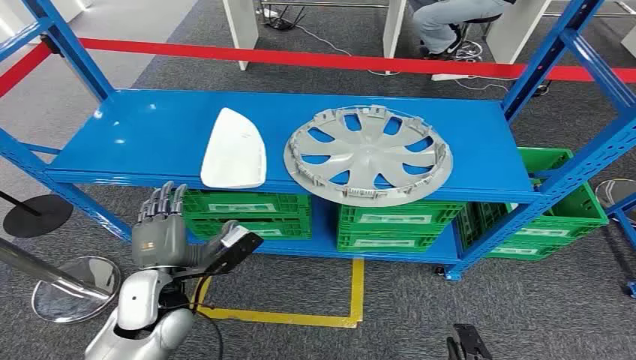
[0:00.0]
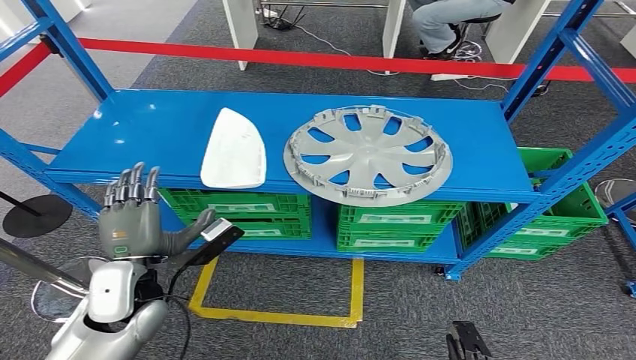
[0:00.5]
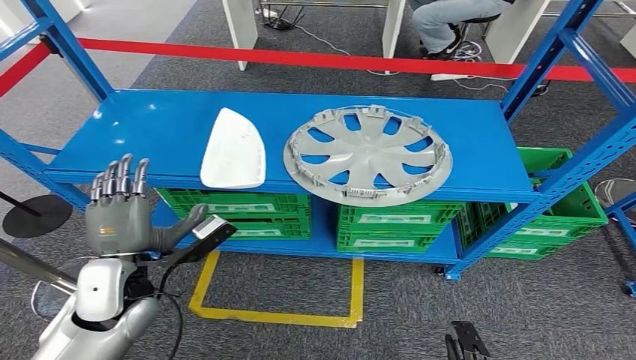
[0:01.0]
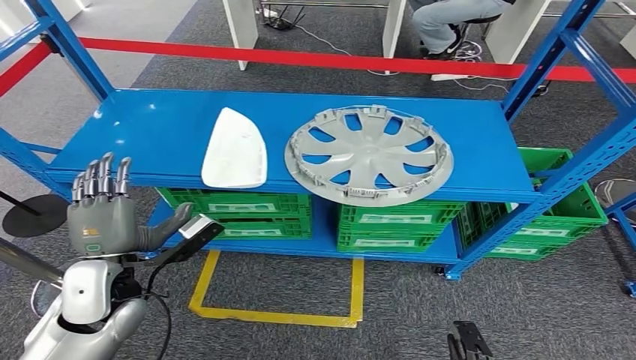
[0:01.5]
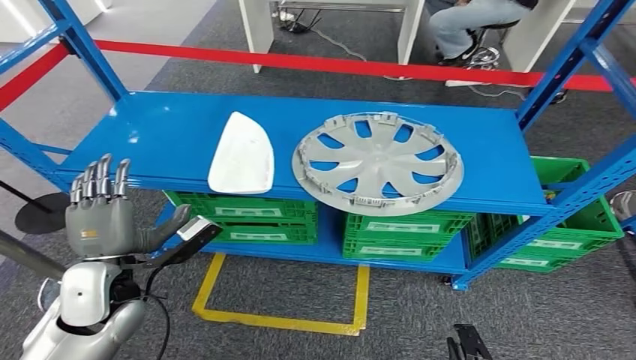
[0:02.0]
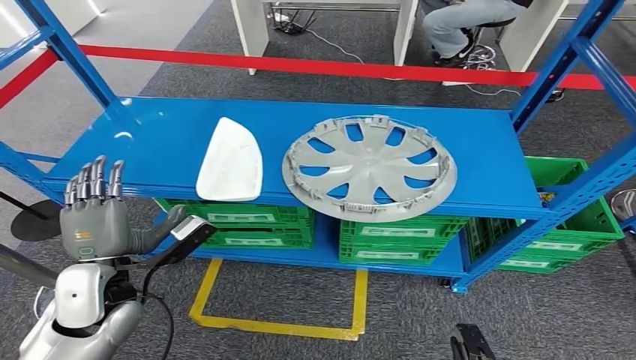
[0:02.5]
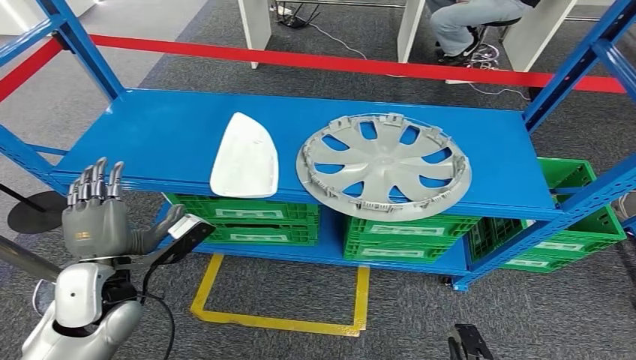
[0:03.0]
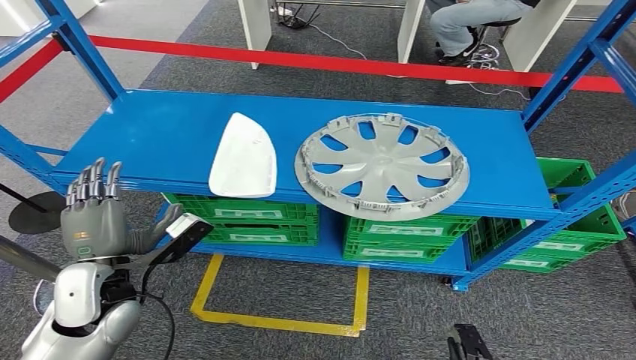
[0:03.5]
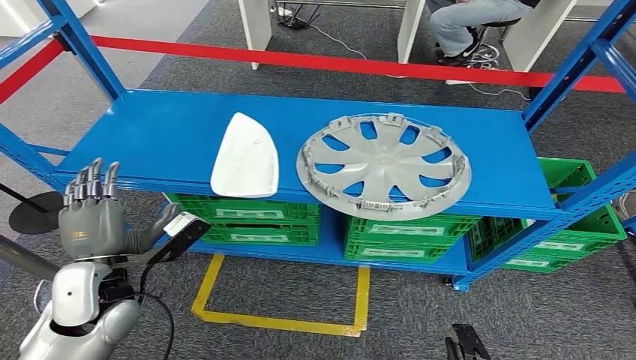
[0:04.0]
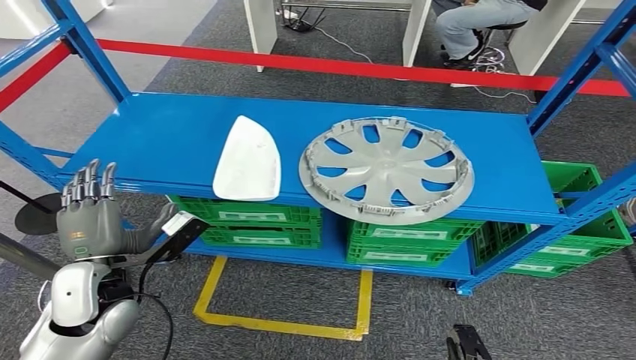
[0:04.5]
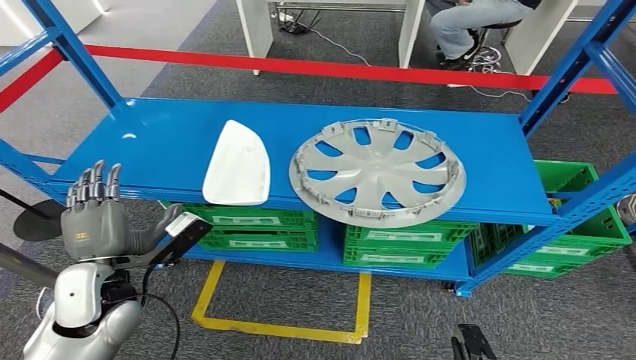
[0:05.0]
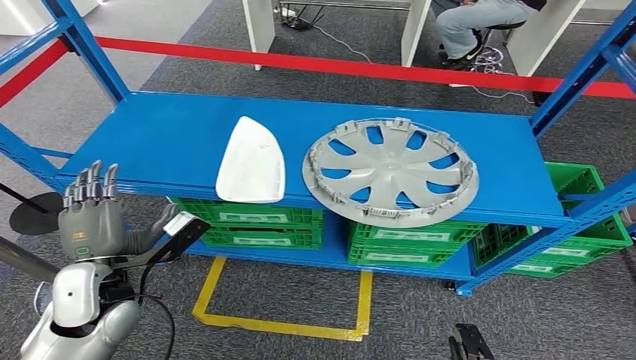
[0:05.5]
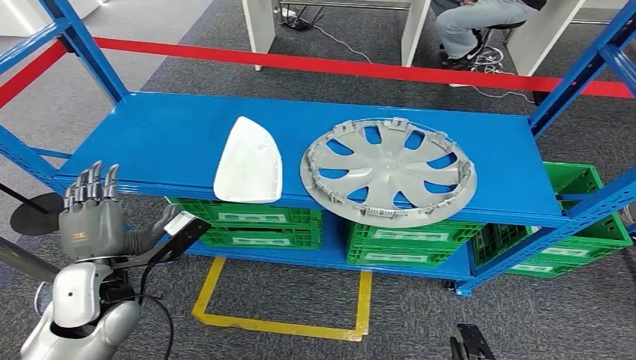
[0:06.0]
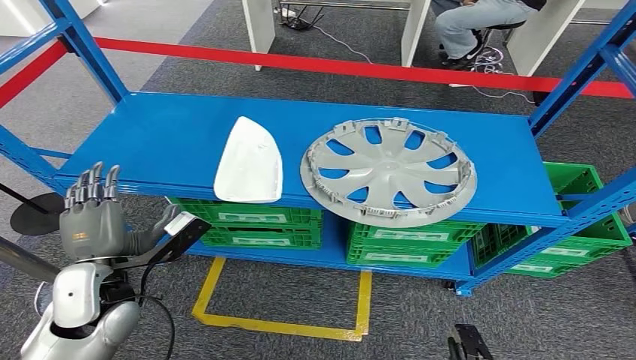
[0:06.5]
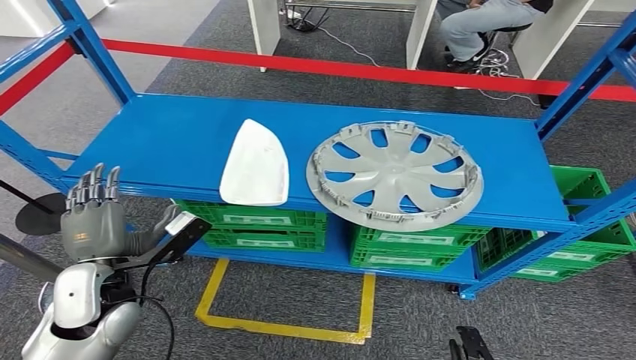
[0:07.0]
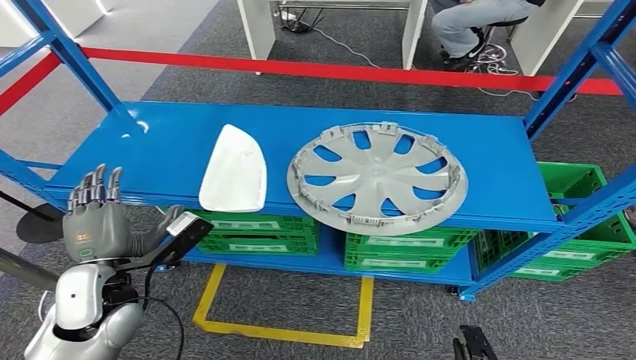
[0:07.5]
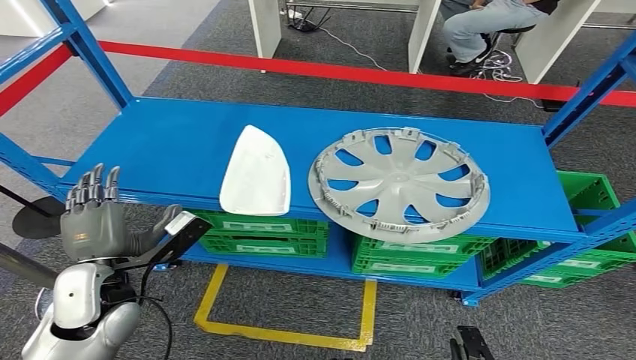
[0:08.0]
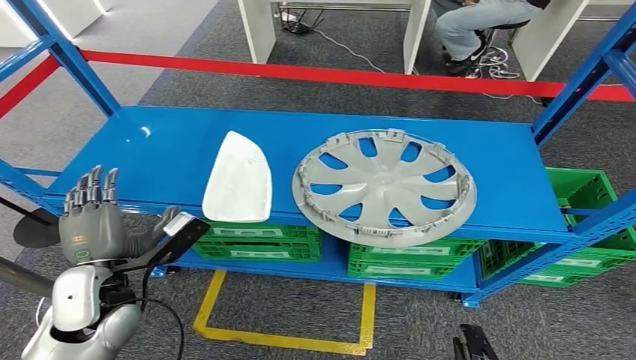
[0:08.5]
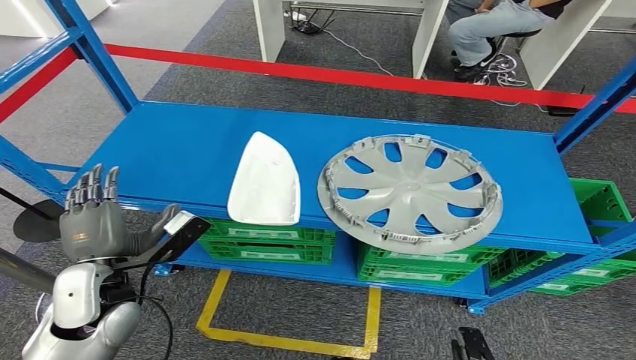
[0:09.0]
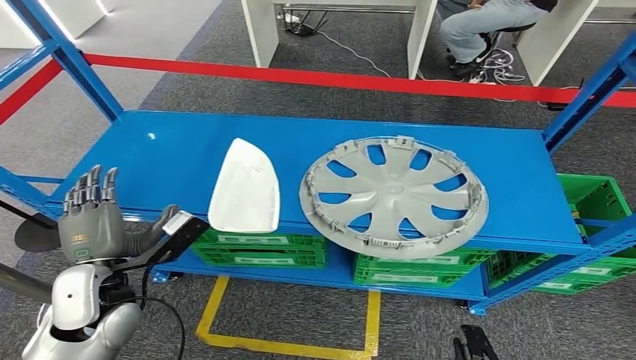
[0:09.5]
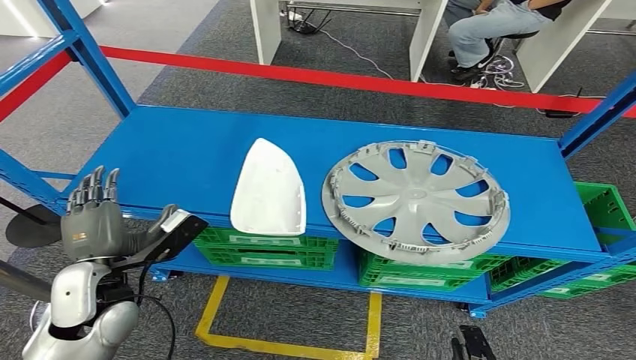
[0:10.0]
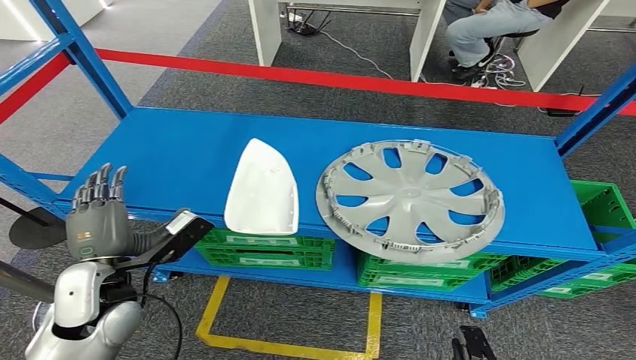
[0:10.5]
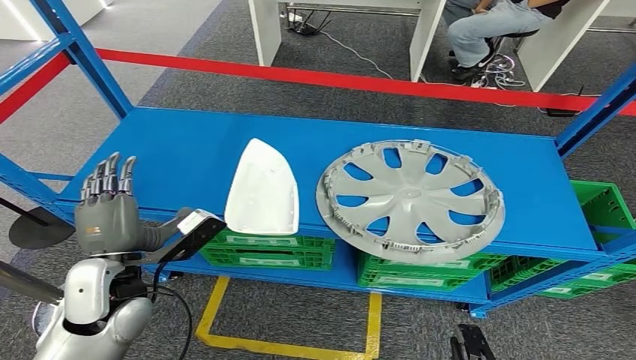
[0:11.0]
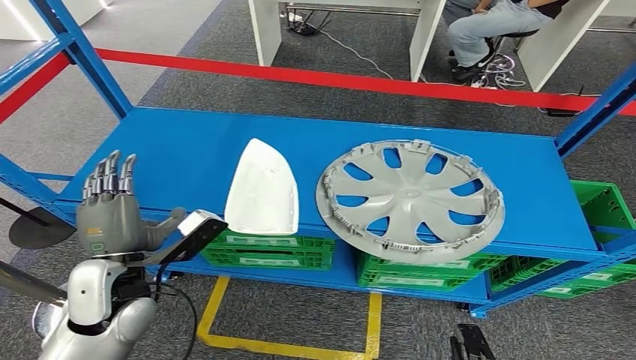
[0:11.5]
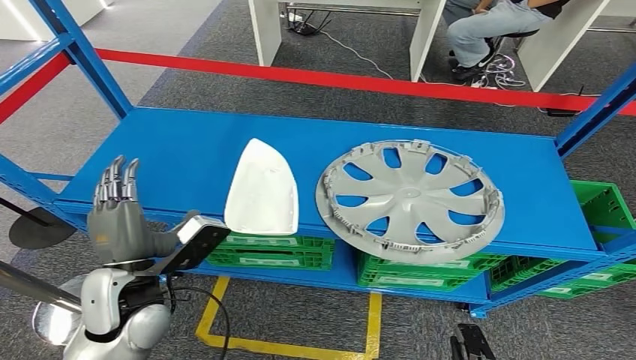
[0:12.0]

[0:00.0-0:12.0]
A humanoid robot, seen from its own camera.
0:02.0 to 0:04.0: The hands move only a little.
0:04.0 to 0:06.0: The two hands keep their place.
0:10.0 to 0:12.0: There are only small adjustments of the hands.

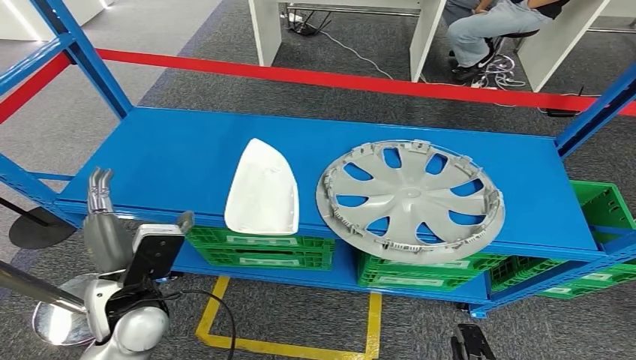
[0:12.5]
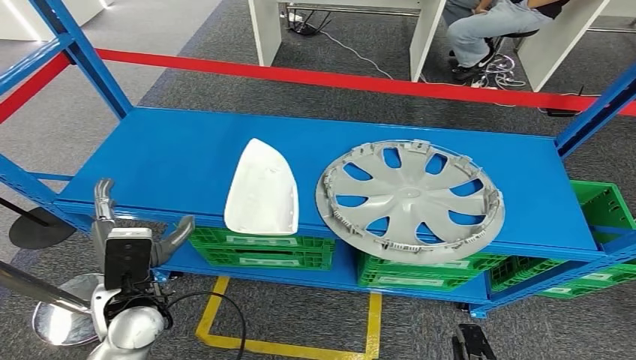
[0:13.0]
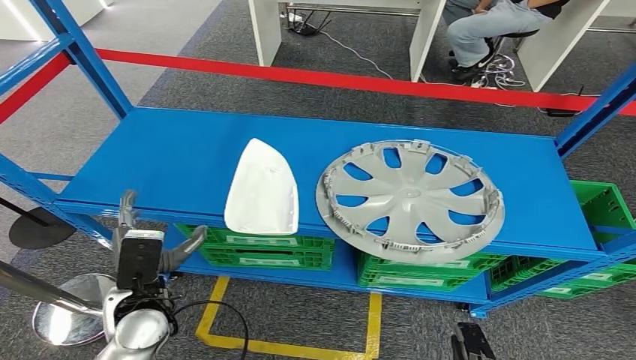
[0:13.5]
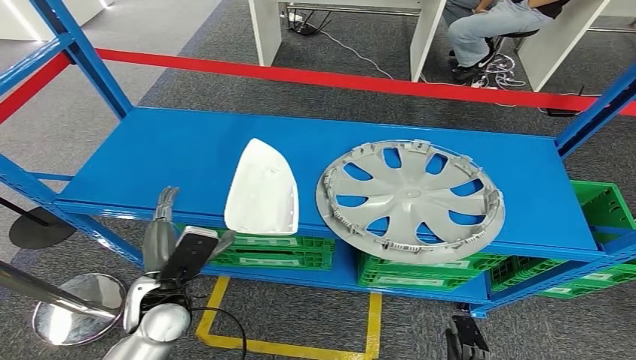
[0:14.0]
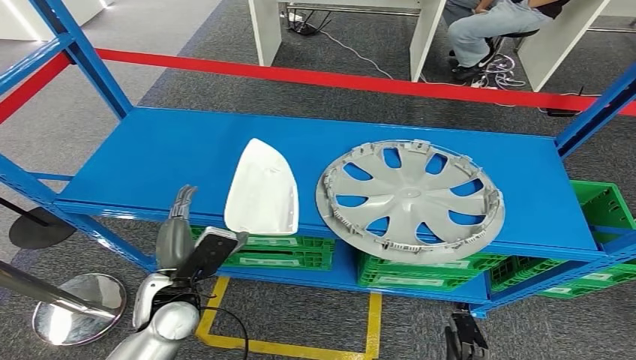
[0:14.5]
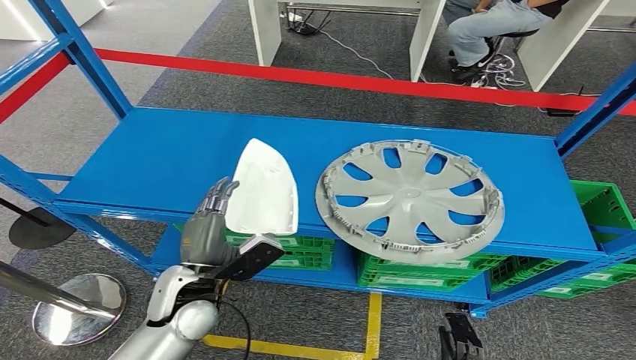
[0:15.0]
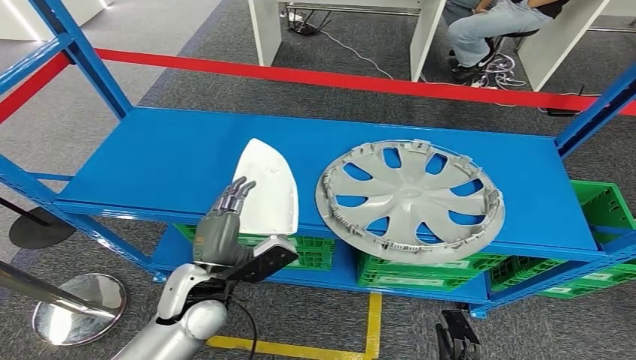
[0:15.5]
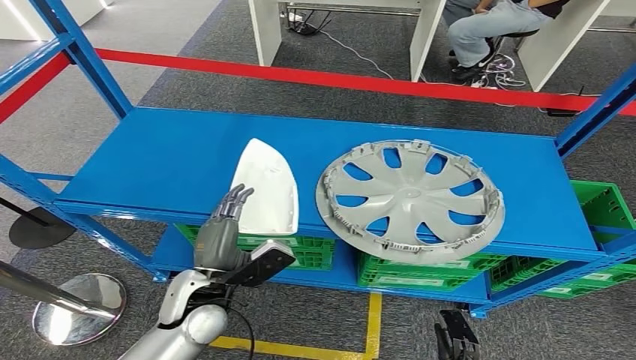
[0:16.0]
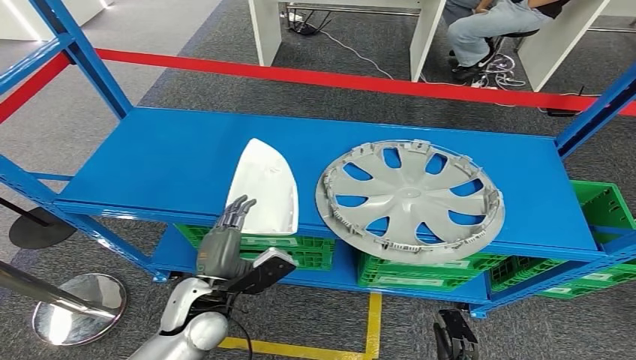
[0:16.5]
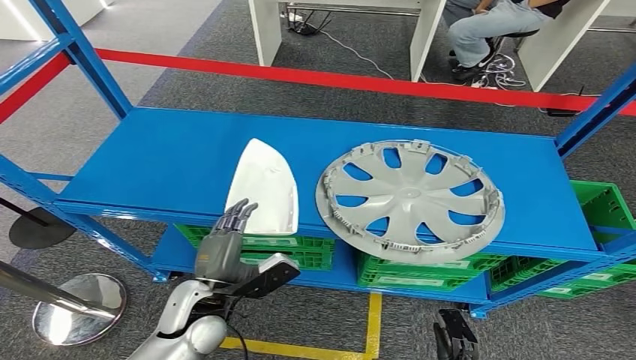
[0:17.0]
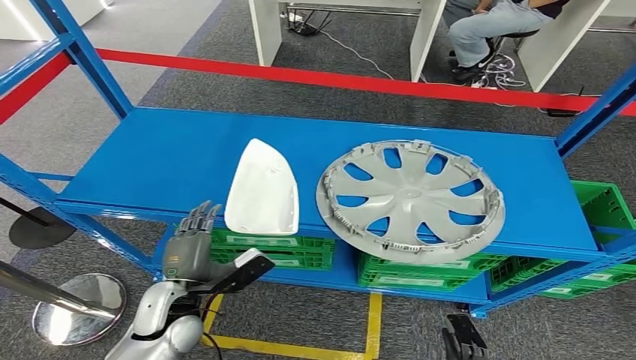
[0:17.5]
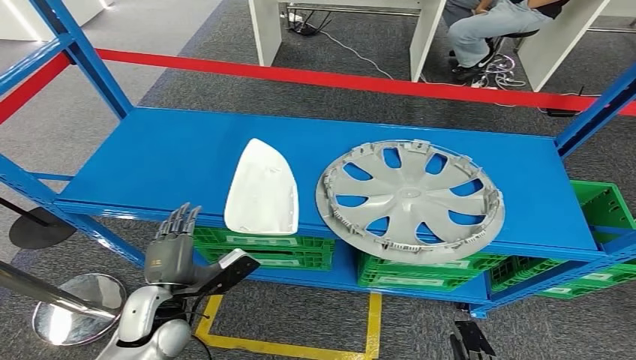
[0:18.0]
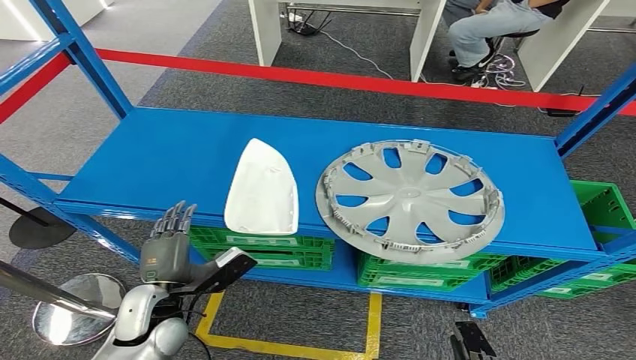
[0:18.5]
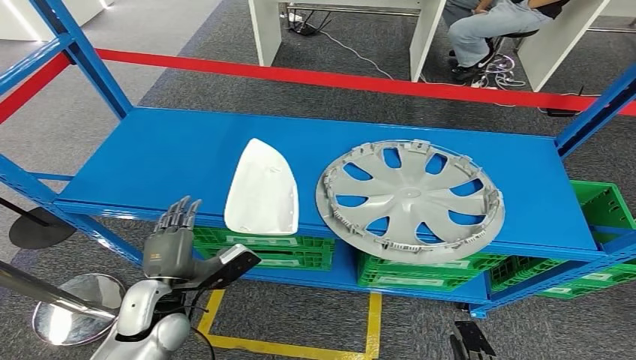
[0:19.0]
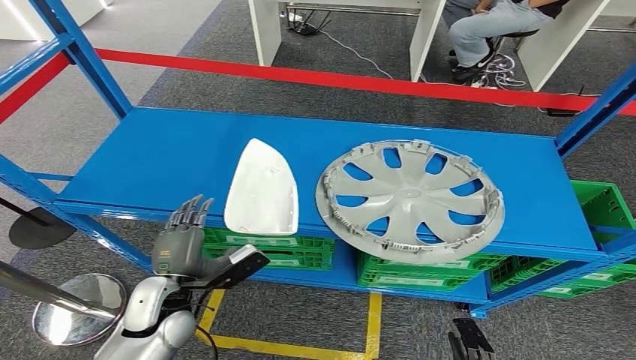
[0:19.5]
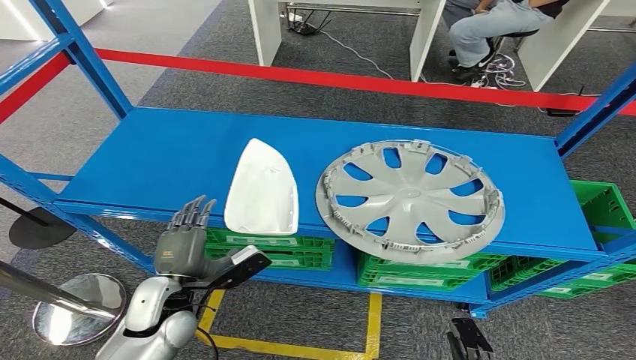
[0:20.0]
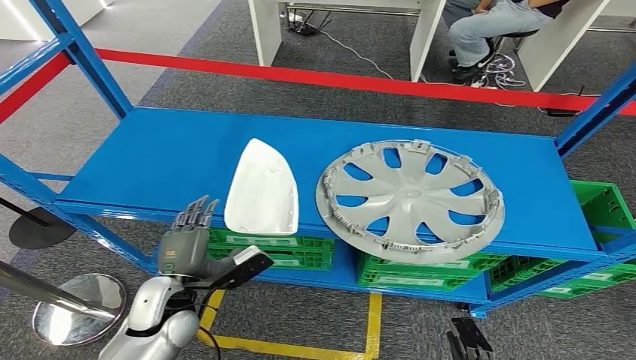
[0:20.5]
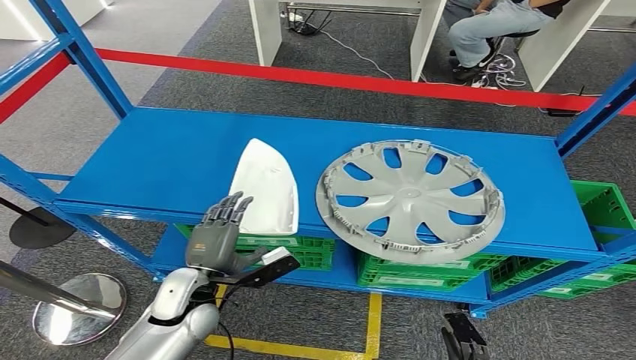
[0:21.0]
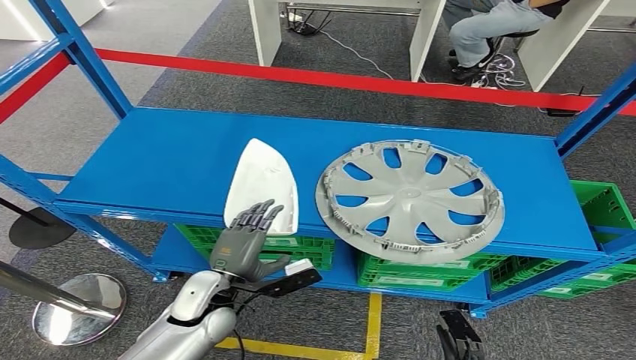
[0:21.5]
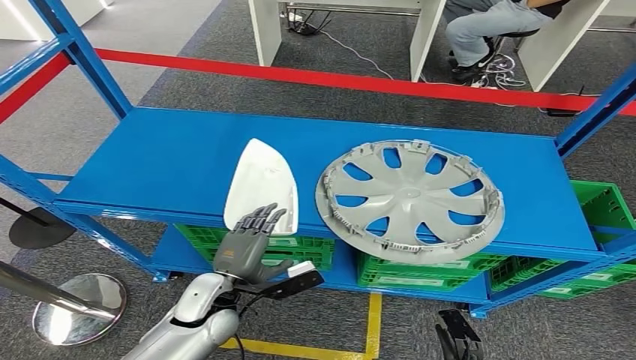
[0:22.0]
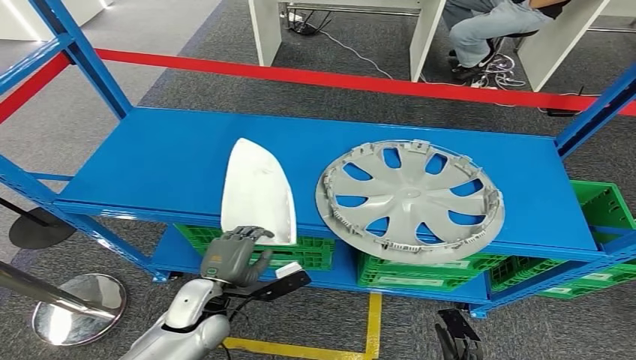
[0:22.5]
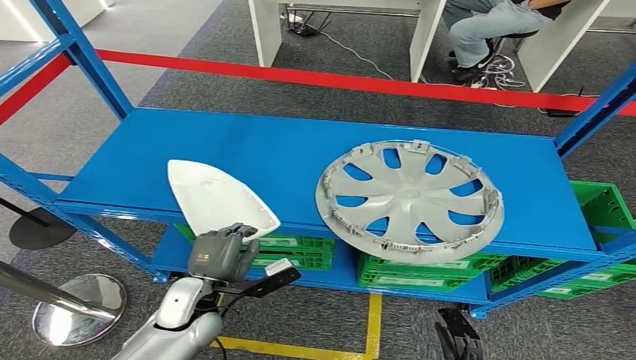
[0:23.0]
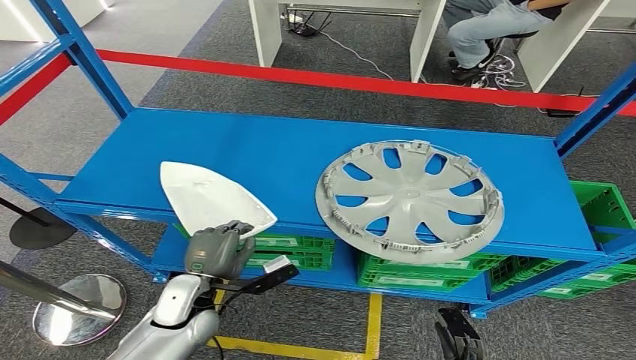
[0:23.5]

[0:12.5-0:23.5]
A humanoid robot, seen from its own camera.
0:12.5 to 0:14.5: The left hand is displaced downward by some 5 cm.
0:14.5 to 0:16.0: The hands make only small movements.
0:16.0 to 0:18.0: The left hand is displaced to the left by some 5 cm.
0:18.0 to 0:20.0: The hands stay close to where they were, moving slightly.
0:20.0 to 0:21.5: The left hand travels to the right by about 5 cm.
0:21.5 to 0:23.5: The hands stay close to where they were, moving slightly.
